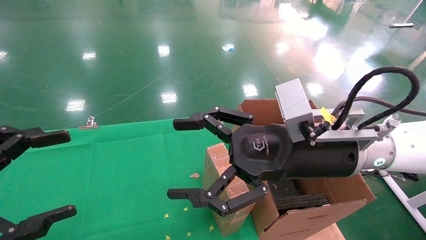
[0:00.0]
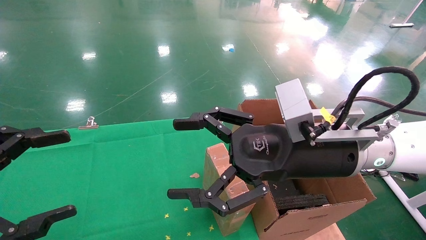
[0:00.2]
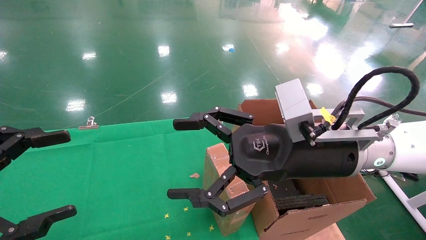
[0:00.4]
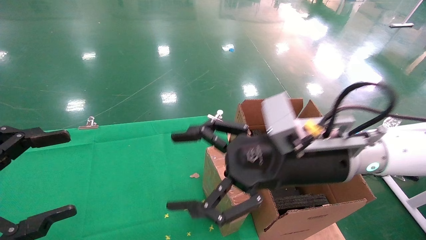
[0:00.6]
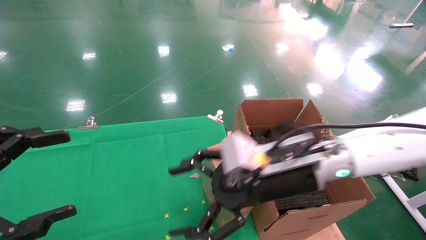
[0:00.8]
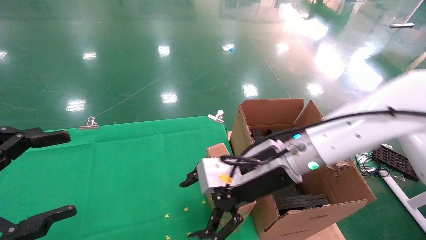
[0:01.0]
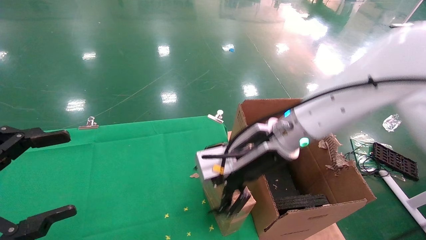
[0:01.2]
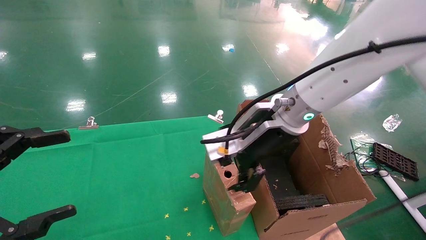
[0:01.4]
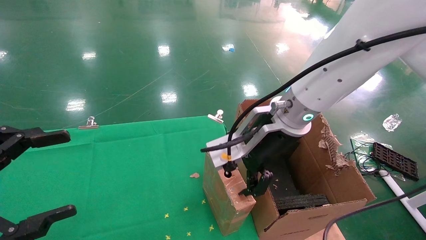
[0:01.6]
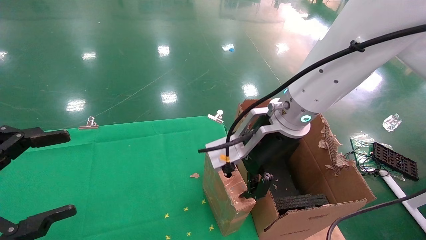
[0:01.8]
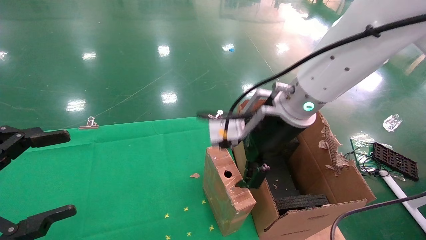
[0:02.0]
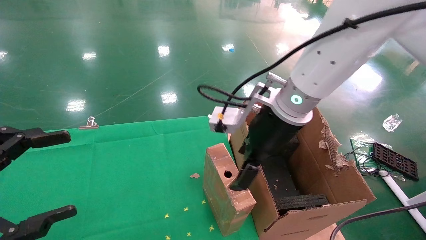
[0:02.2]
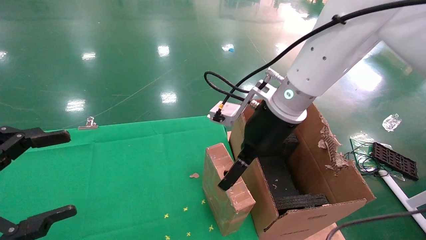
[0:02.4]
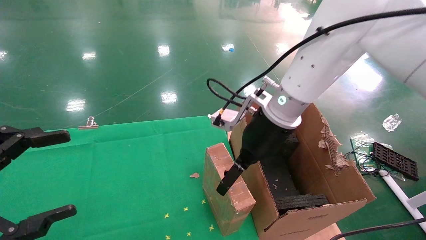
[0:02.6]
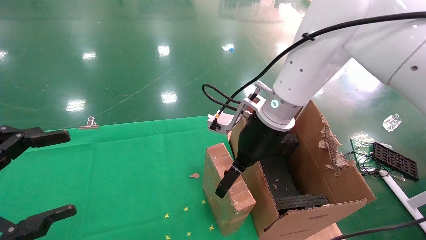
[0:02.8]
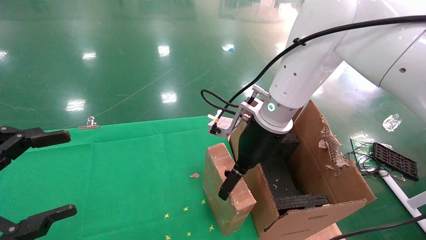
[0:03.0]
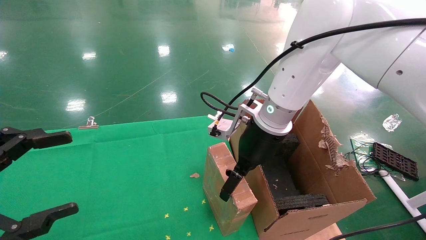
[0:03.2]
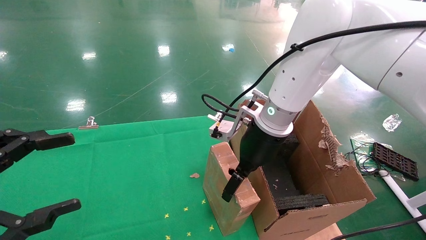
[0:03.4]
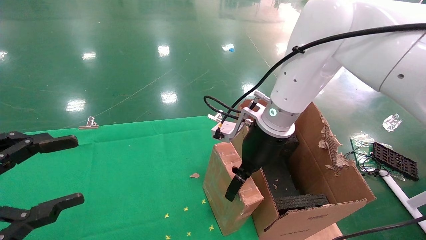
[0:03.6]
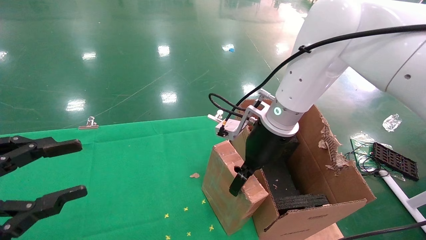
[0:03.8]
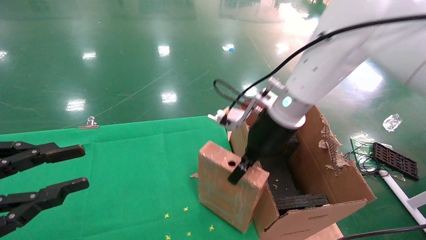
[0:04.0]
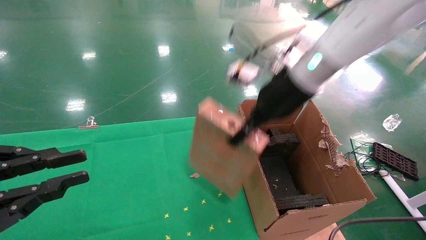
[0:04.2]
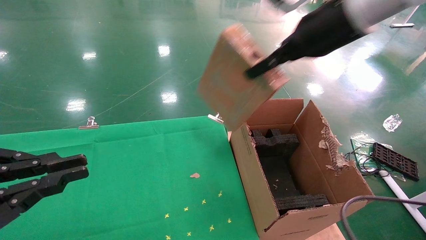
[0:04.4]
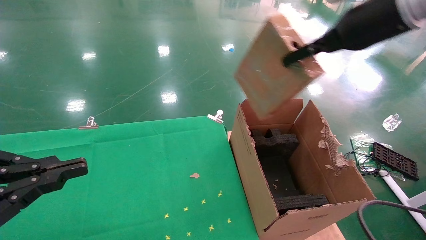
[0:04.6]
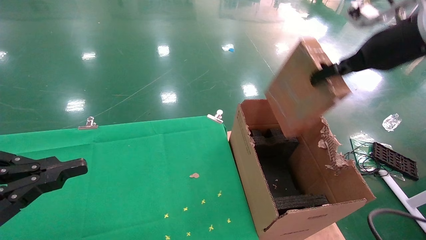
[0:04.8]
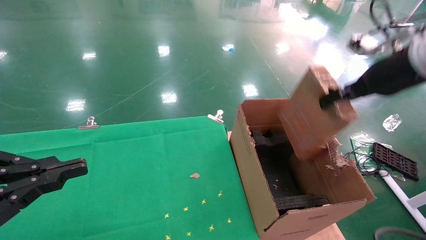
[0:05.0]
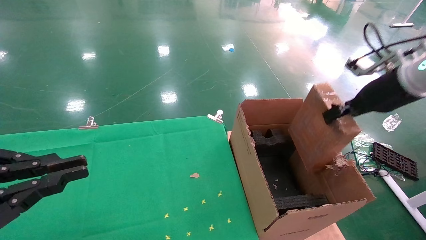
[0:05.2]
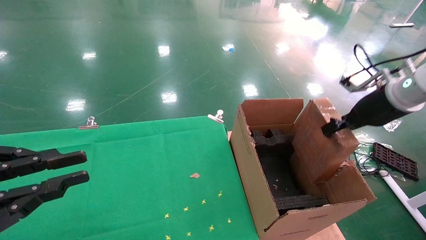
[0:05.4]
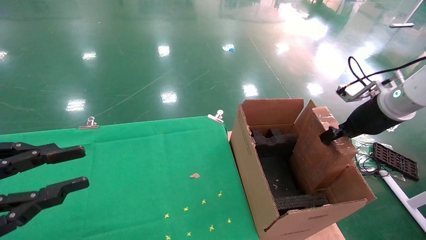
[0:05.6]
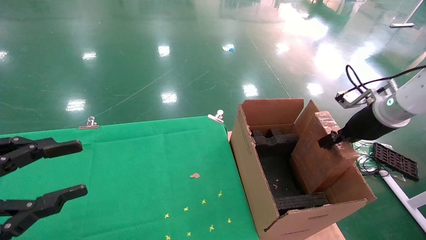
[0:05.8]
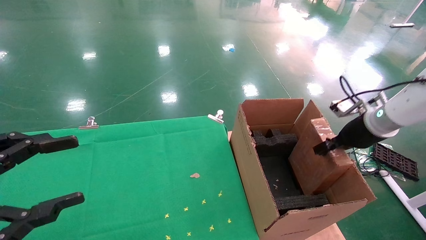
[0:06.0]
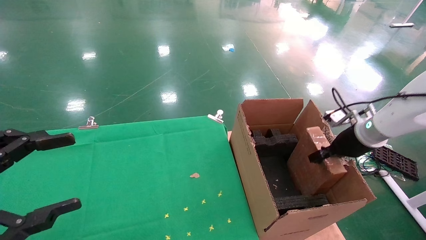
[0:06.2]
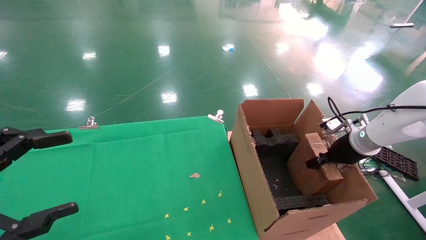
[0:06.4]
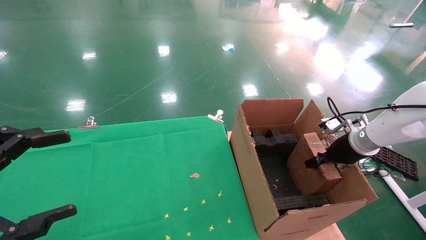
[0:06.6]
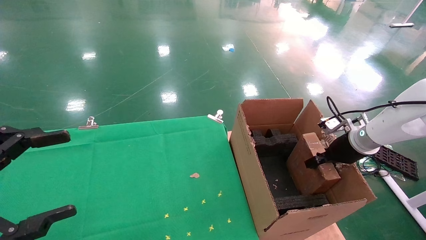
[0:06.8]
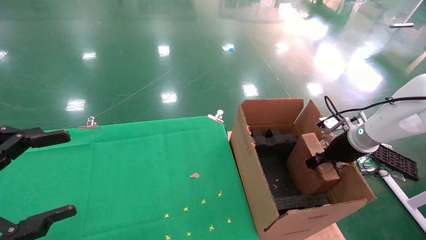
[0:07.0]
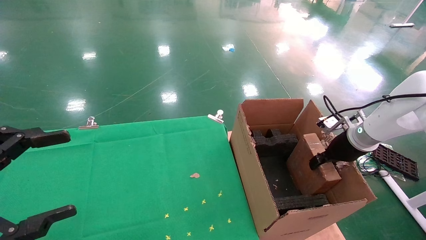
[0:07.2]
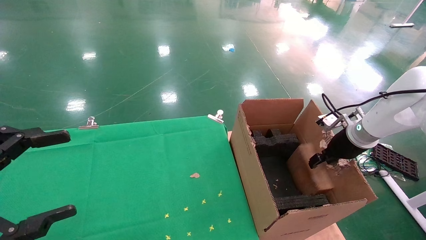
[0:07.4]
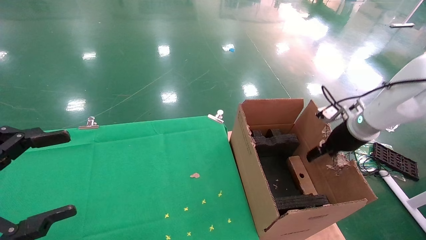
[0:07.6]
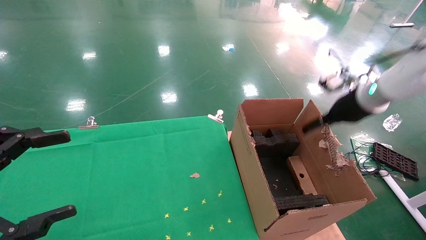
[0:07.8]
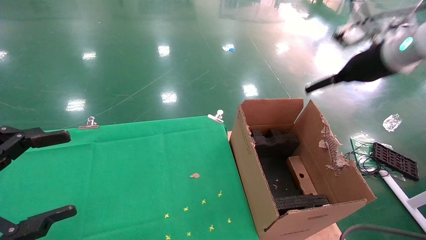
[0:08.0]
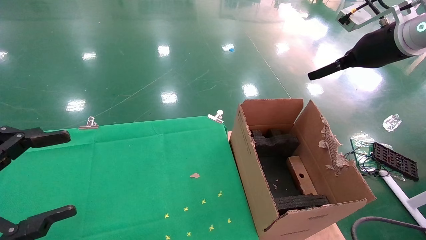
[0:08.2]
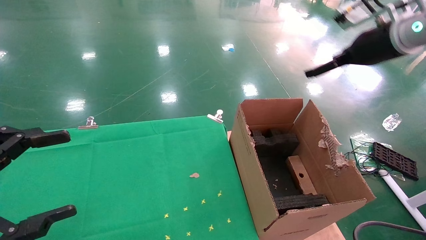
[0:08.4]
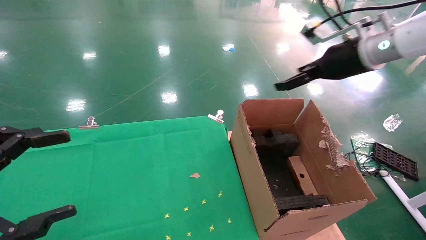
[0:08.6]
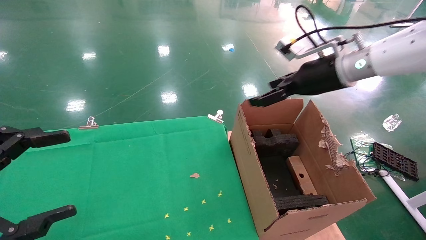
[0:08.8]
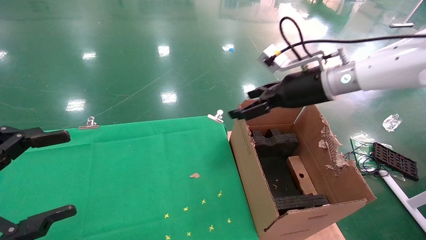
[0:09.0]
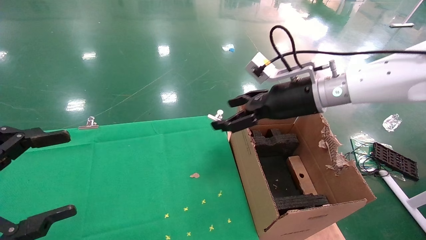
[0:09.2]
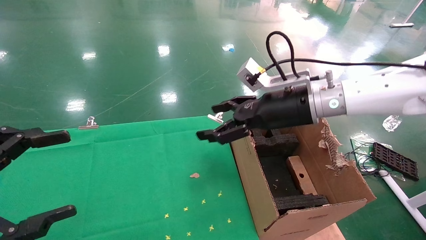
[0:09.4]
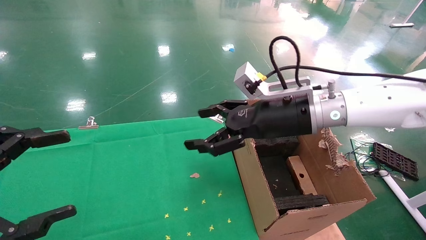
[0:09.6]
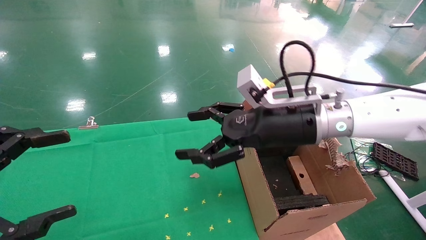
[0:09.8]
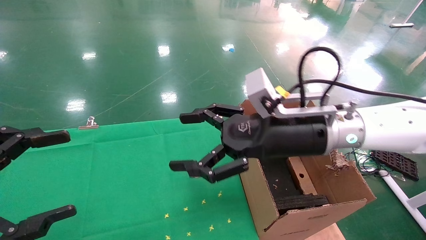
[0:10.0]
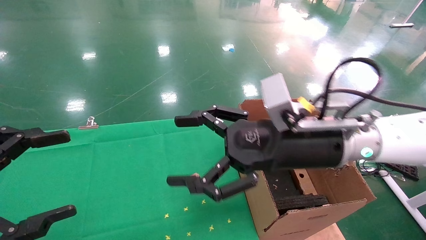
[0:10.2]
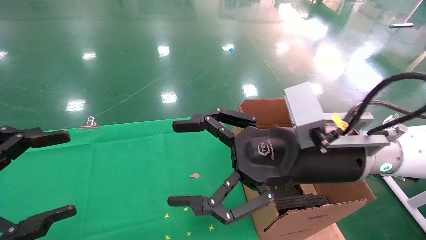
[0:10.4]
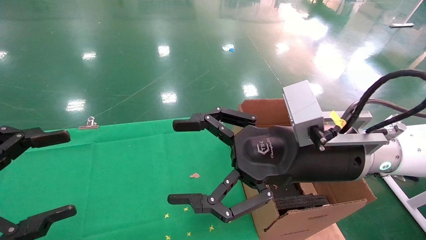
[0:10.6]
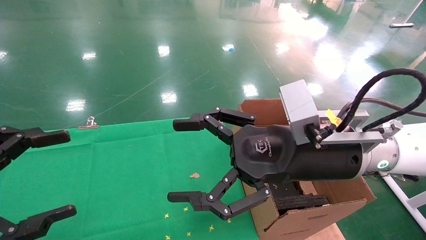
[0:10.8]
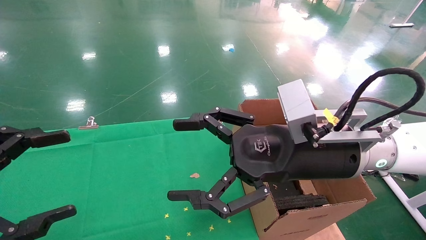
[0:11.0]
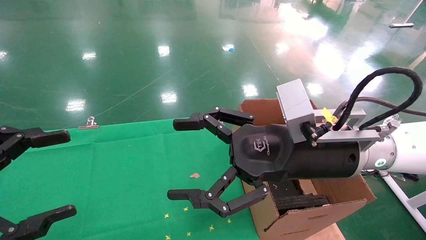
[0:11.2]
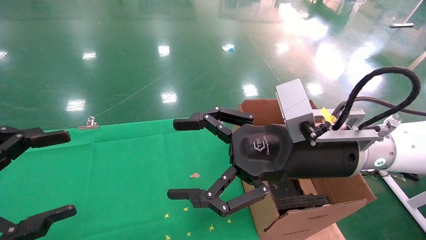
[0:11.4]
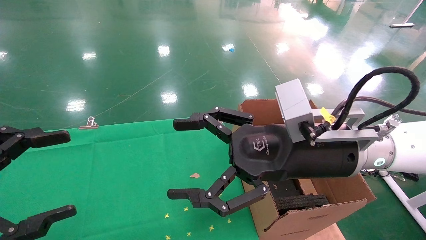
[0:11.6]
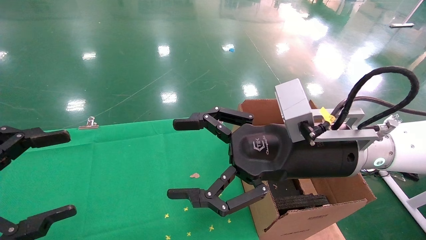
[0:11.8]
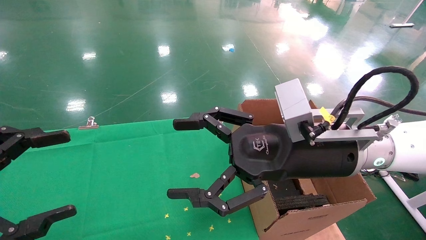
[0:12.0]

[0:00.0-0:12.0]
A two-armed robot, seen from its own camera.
Task of the whole recording: using a robotic arm to pick up a cardboard box and palace it the carton.
Step, 0:00.8 to 0:04.2: Pick up the mouse and the power cord paper box.
Step, 0:04.4 to 0:08.4: Place the mouse and the power cord paper box into the container.
0:00.0 to 0:01.6: The right gripper goes approximately 5 cm forward.
0:01.6 to 0:03.0: The right gripper shifts by approximately 5 cm.
0:03.0 to 0:04.4: The left gripper closes up. The right gripper is displaced upward and to the right by about 20 cm, and closes up.
0:04.4 to 0:06.0: The right gripper moves downward and to the right, roughly 25 cm. Meanwhile the left gripper opens.
0:06.0 to 0:07.6: The right gripper opens; the left gripper opens up.
0:07.6 to 0:09.0: The right gripper goes about 15 cm to the left and upward, and opens its fingers.
0:09.0 to 0:10.4: The right gripper goes approximately 15 cm backward and to the left.
0:10.4 to 0:12.0: Both grippers stay about where they are.

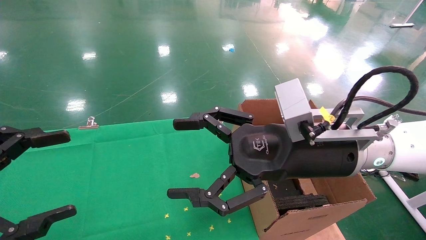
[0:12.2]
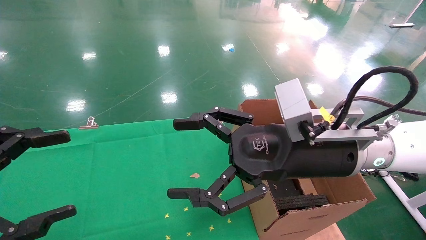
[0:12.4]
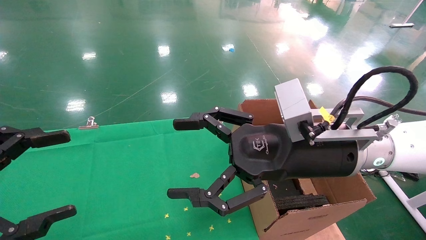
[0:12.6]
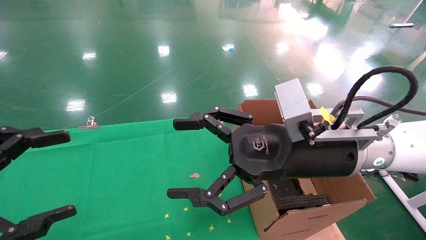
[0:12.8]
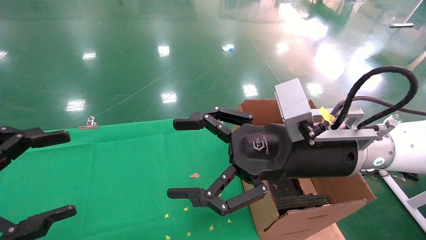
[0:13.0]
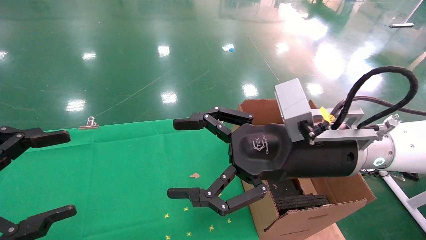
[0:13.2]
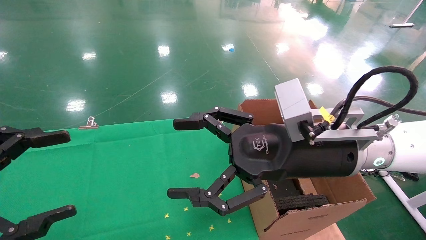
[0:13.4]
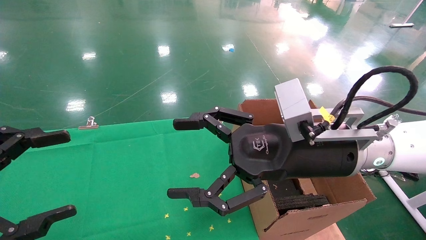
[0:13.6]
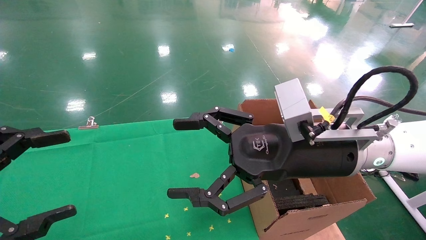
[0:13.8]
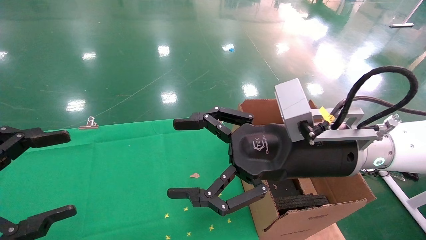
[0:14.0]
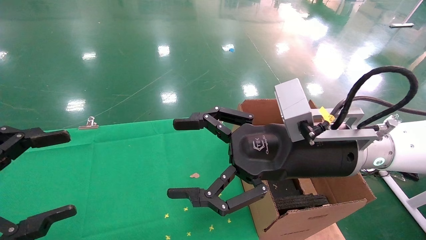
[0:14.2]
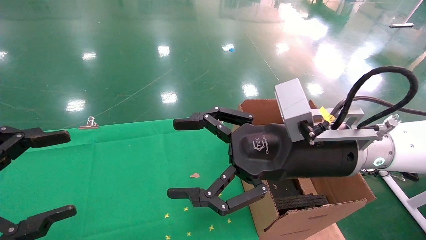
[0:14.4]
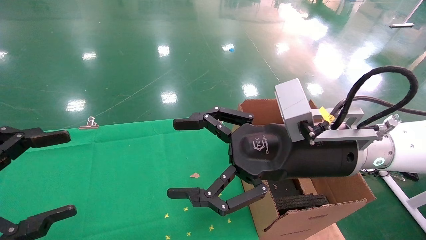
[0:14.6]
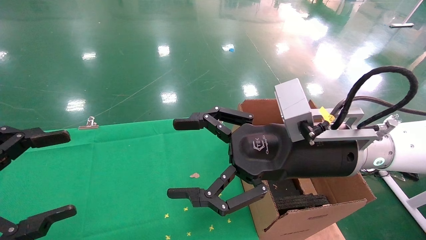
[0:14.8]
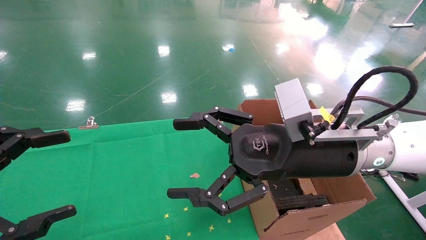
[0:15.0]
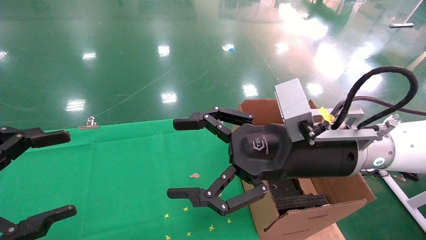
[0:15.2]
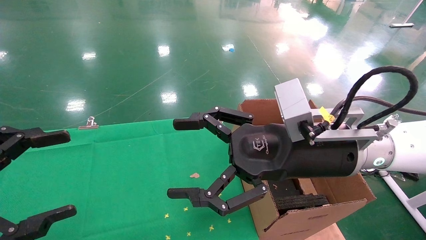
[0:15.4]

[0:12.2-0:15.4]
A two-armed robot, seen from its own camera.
Task of the whole recording: using a robotic arm to pick up a cardboard box and palace it the carton.
0:12.2 to 0:15.4: Neither gripper changes place.
